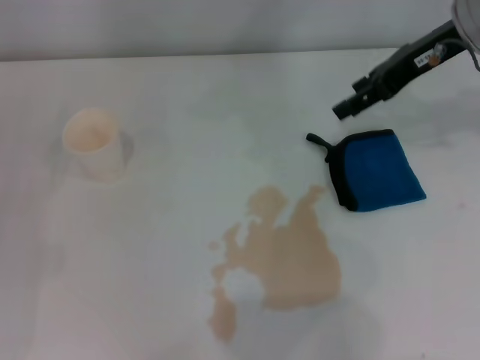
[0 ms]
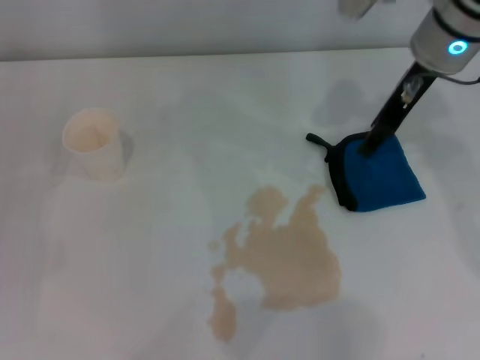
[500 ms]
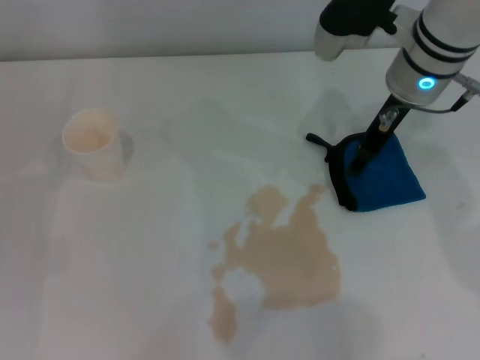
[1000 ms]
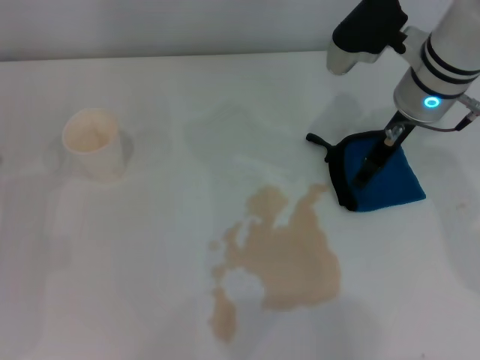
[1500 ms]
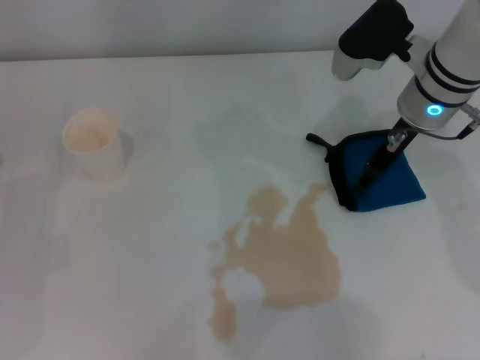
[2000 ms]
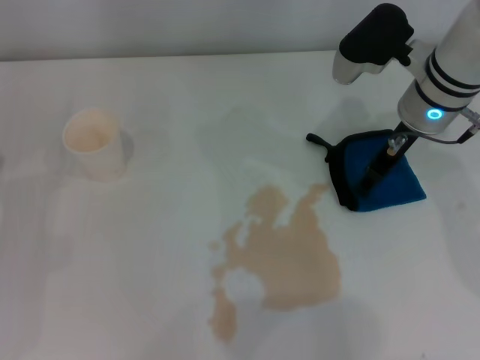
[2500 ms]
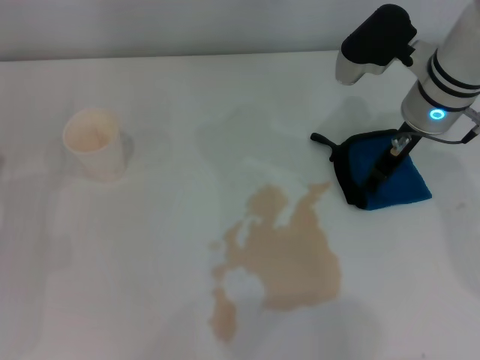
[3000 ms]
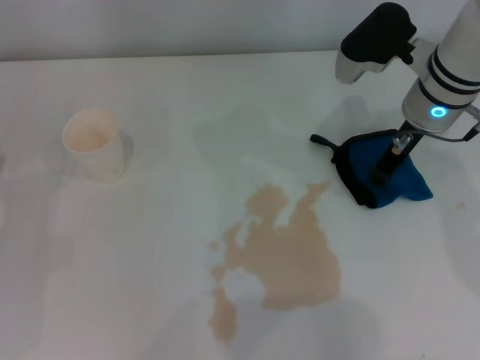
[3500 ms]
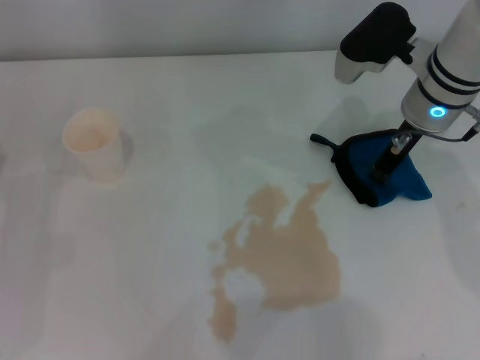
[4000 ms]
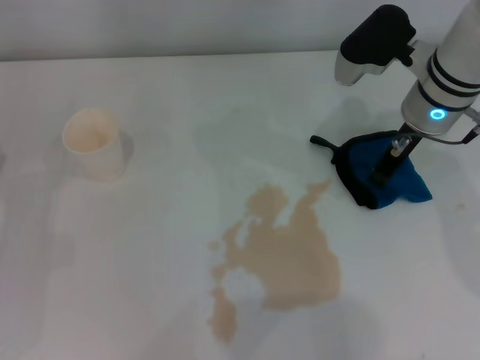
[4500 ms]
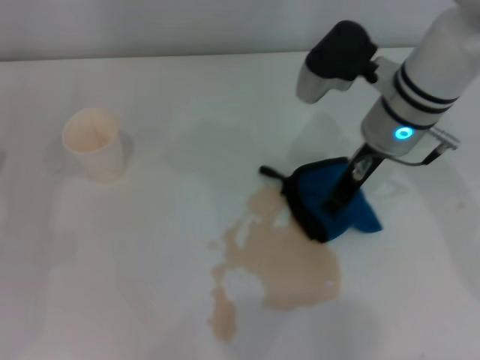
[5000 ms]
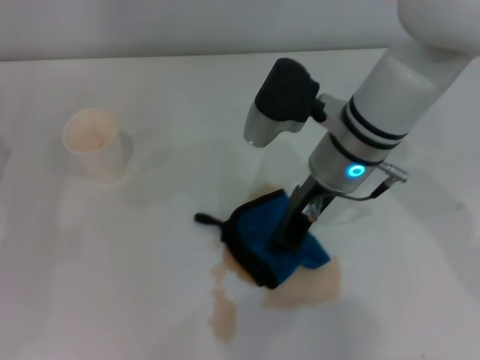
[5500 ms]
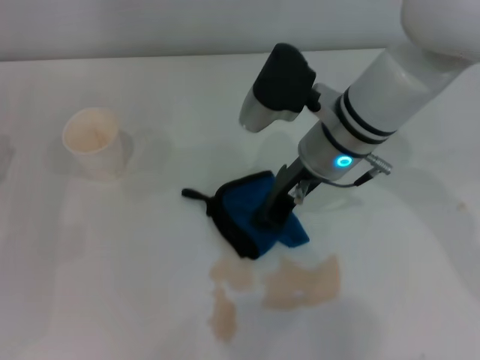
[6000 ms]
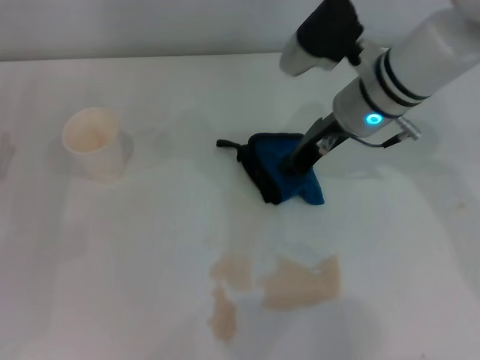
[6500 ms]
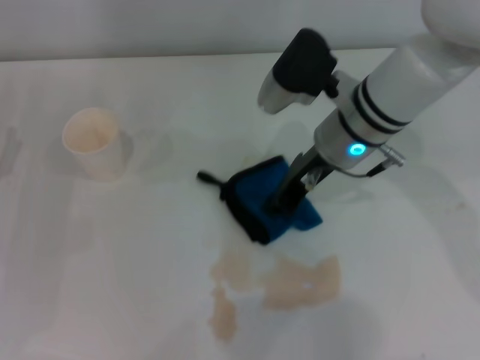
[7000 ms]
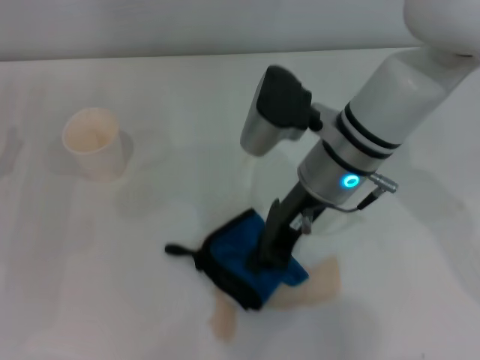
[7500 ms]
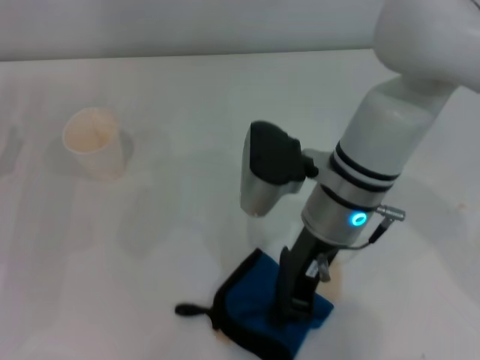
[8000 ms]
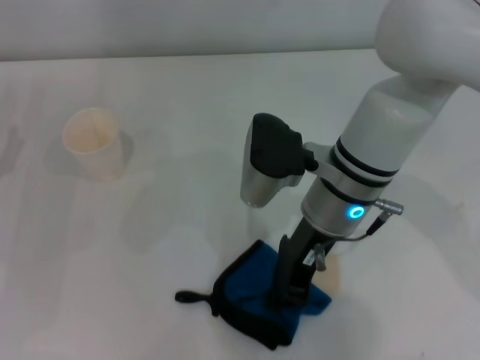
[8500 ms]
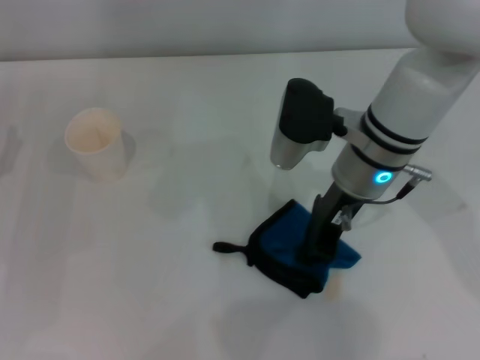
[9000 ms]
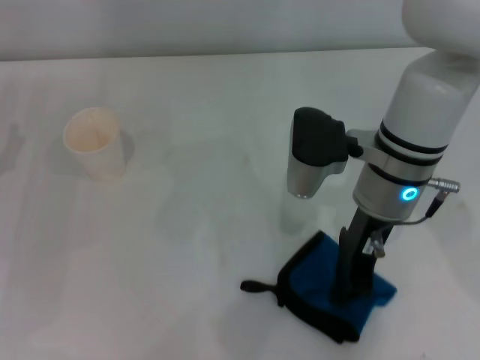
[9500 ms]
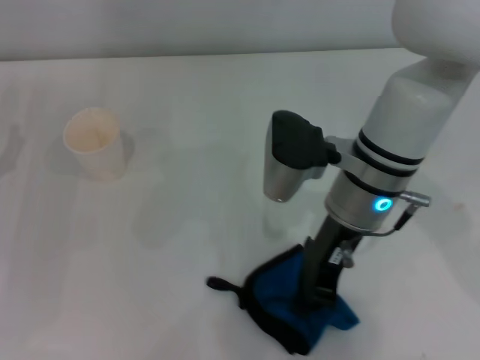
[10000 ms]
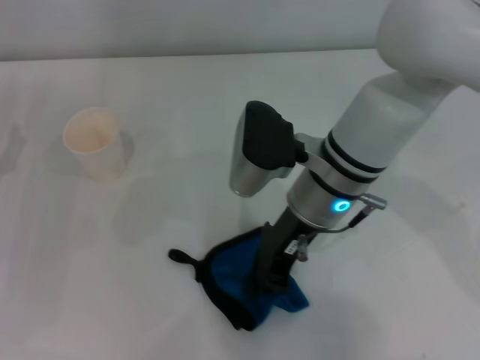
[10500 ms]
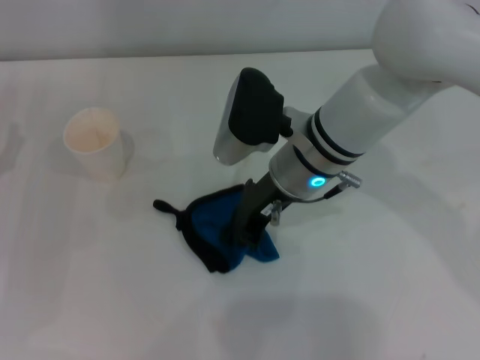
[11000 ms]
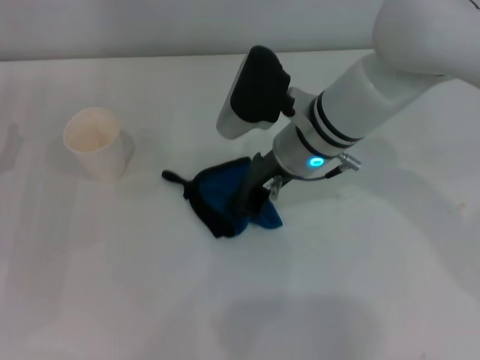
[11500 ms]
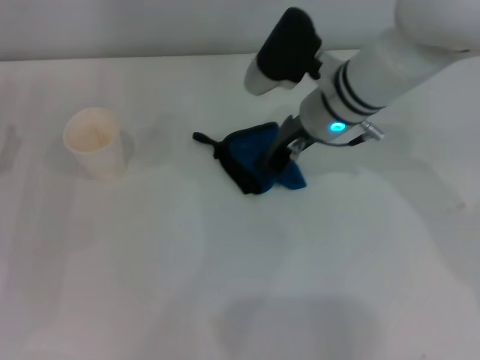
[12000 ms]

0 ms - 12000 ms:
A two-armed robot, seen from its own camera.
Step, 0 ms - 4000 ms: Grasp the rag with the right gripper.
0 ms - 2000 ms: The right gripper goes approximately 10 cm downward.
2000 ms - 4000 ms: The right gripper closes.
4000 ms - 6000 ms: The right gripper moves to the left, about 10 cm.
6000 ms - 8000 ms: The right gripper changes place by roughly 5 cm.
8000 ms - 10000 ms: The grippers make only small movements.
10000 ms - 12000 ms: The right gripper goes roughly 10 cm forward.

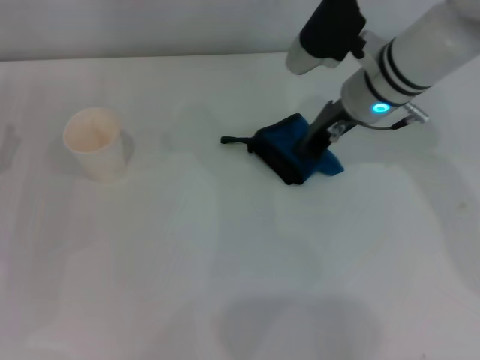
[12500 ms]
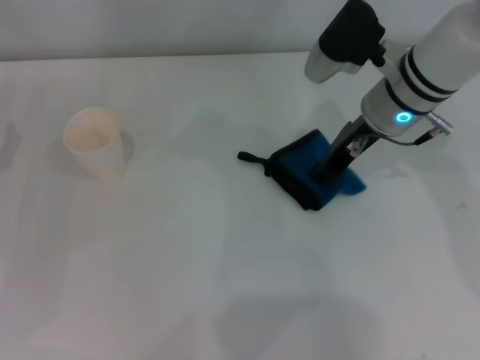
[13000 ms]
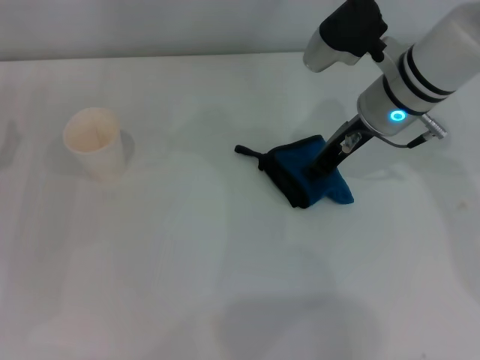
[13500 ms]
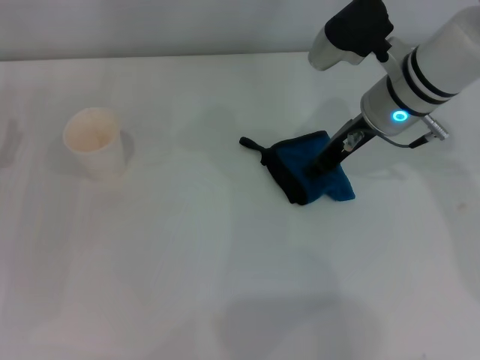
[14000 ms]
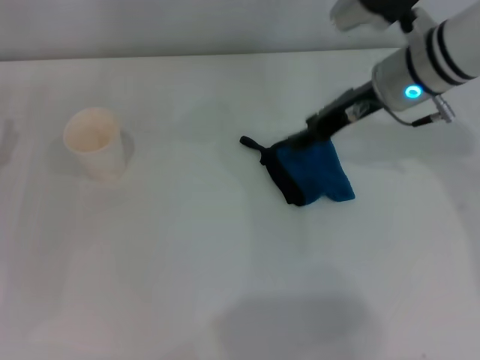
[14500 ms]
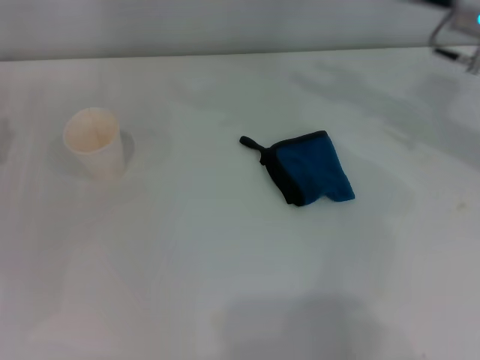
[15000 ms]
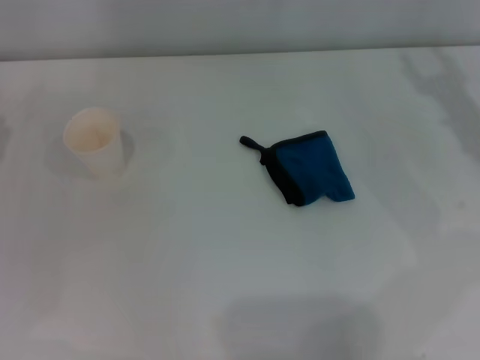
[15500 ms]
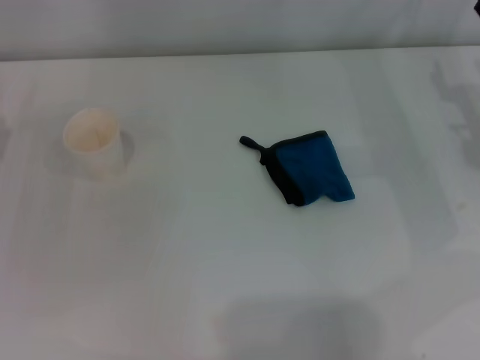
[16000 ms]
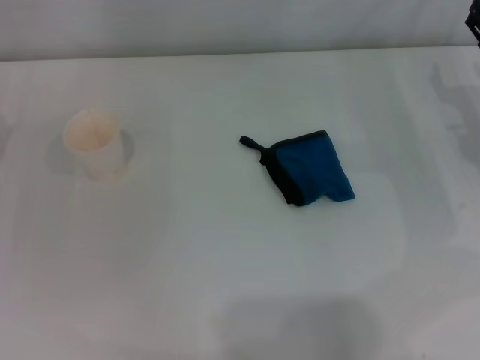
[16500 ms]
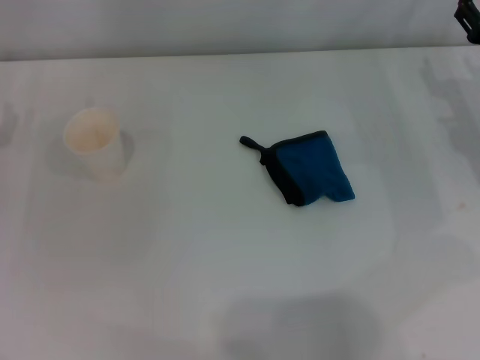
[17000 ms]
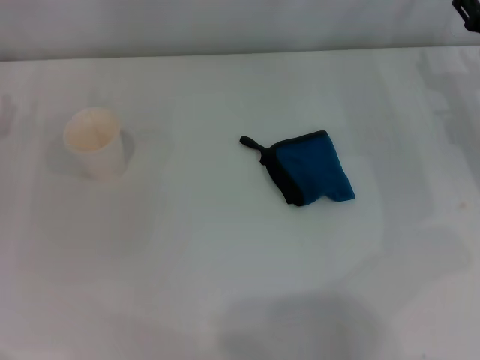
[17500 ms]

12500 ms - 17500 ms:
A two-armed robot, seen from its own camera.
Step, 13500 ms - 14000 ms: Place the rag on the table with the right gripper.
12500 ms - 15000 ms: The right gripper shifts roughly 10 cm to the right and upward, and opens its fingers.
15000 ms - 17500 ms: The right gripper shifts about 10 cm downward and to the right.
